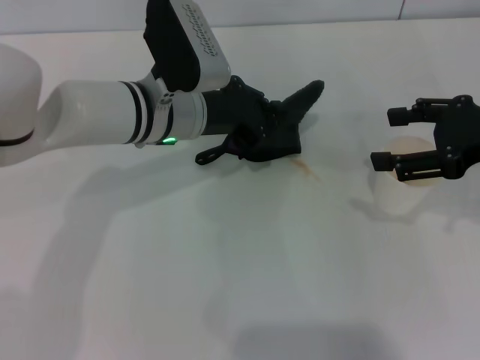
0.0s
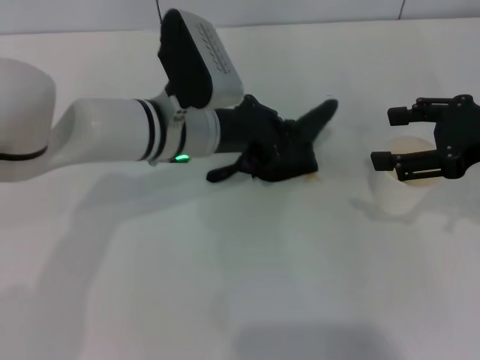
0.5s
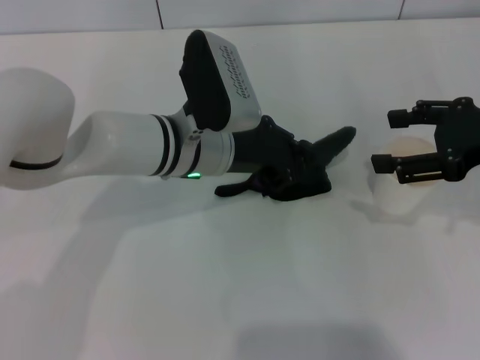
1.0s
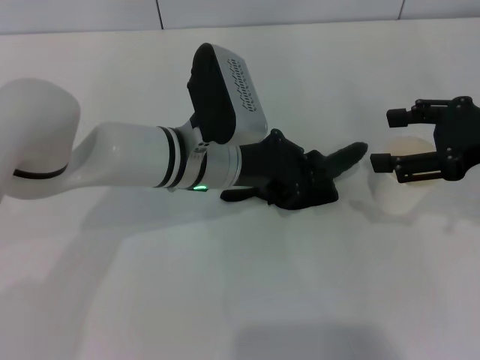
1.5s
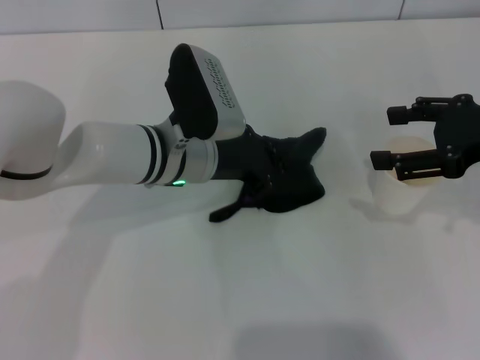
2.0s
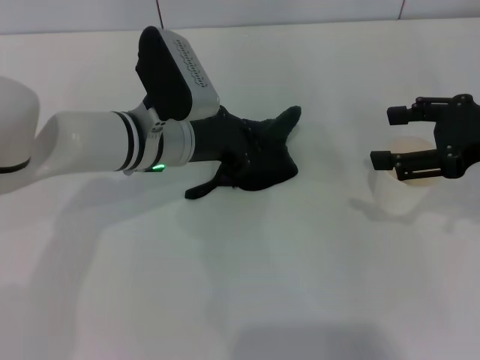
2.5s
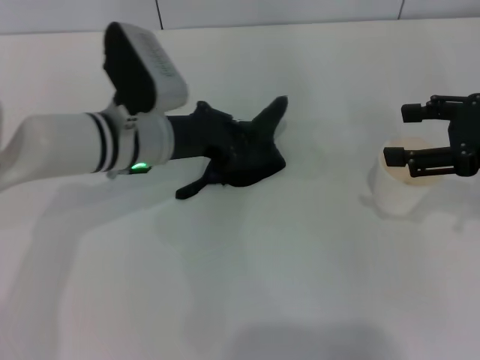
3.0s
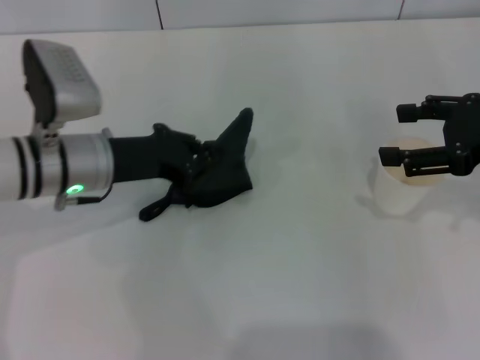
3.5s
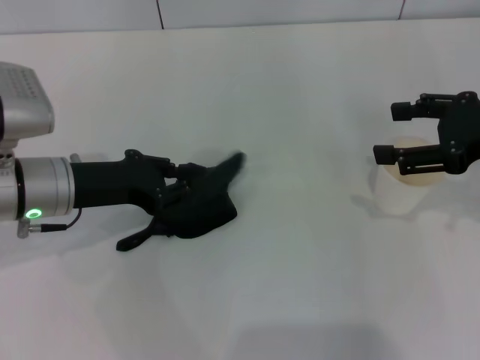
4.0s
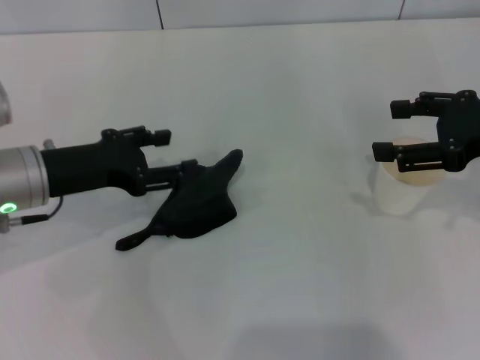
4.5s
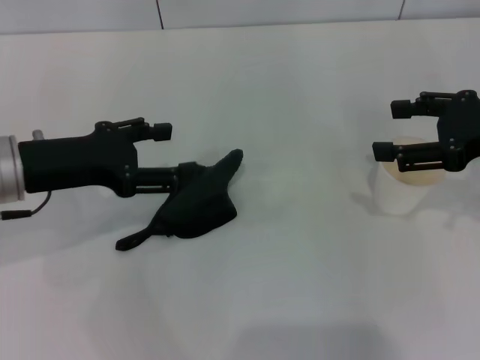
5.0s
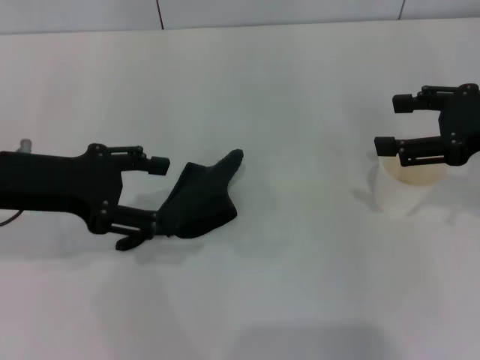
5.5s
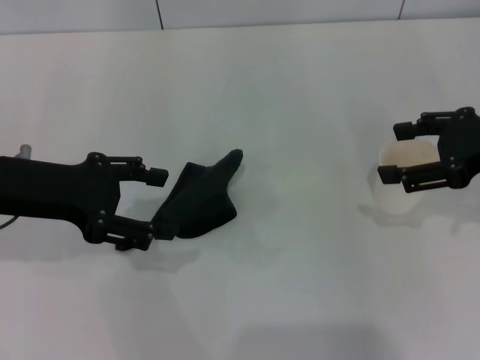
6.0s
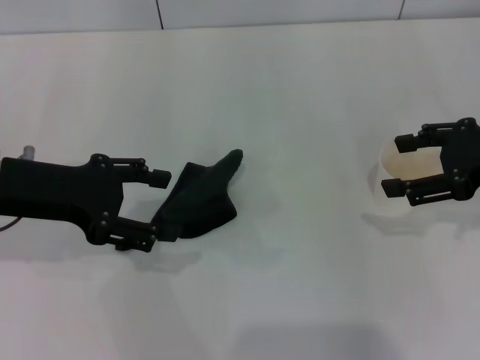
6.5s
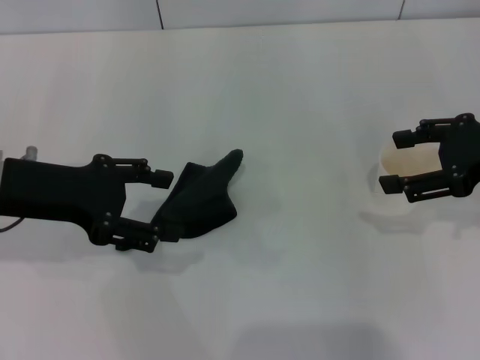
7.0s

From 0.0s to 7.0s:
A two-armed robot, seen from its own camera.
Step, from 0.0s to 3.5s: Wipe the stains off the table with the left gripper.
Step, from 4.0s to 5.5s: Place the rag on the table with the left gripper.
From 0.0s to 2.0s: There are only small adjustments of the grippers.
From 2.0s to 3.5s: The left gripper is displaced to the left by about 10 cm.
From 3.5s to 5.0s: The left gripper goes roughly 5 cm to the left, and opens its fingers.
From 5.0s to 7.0s: The grippers move only a little.

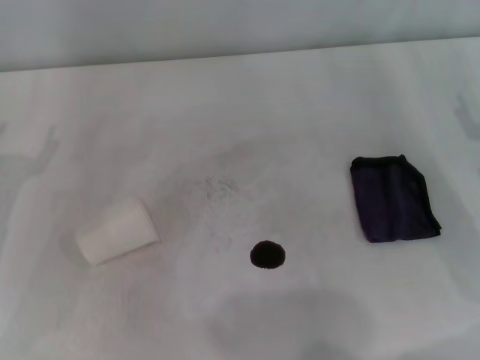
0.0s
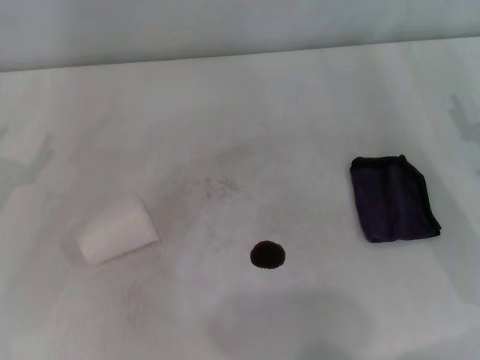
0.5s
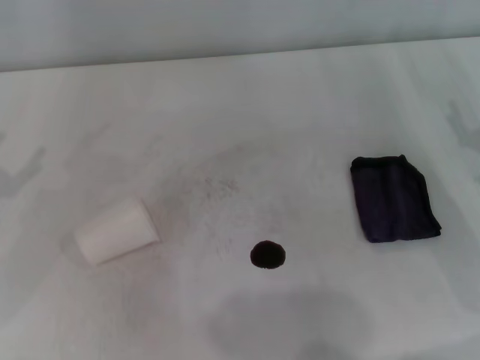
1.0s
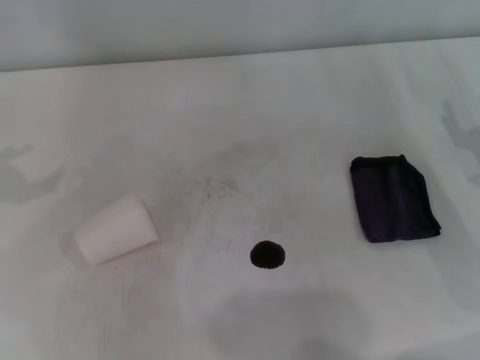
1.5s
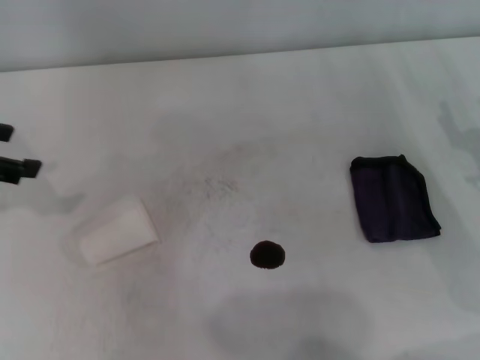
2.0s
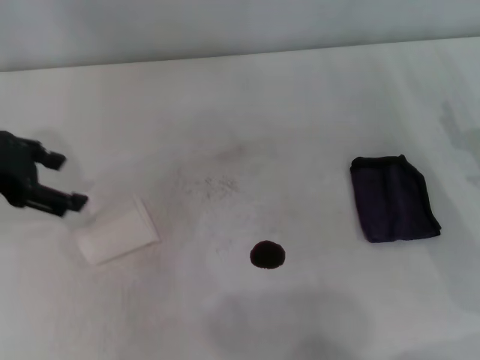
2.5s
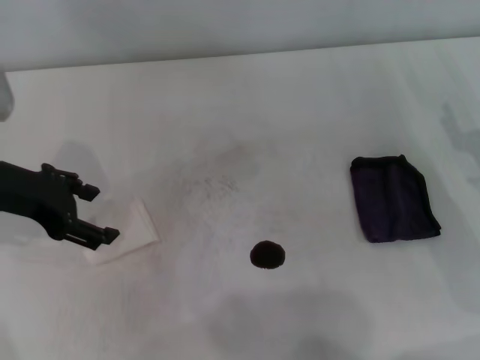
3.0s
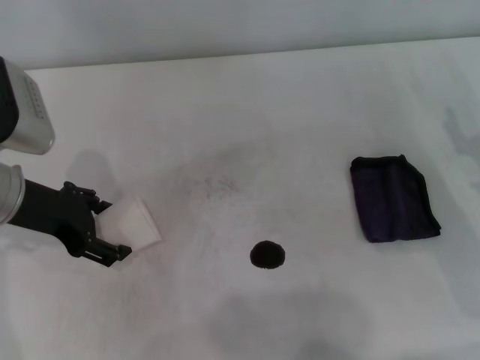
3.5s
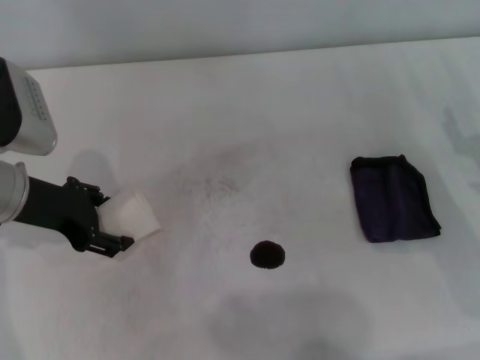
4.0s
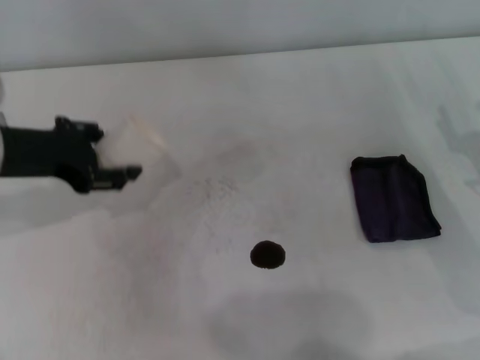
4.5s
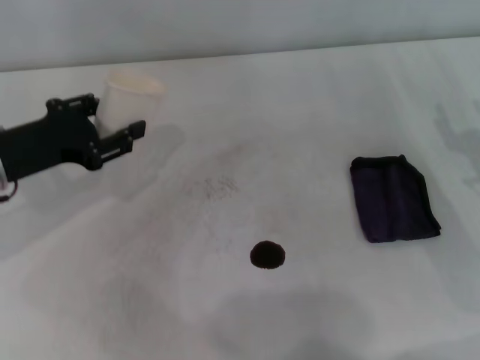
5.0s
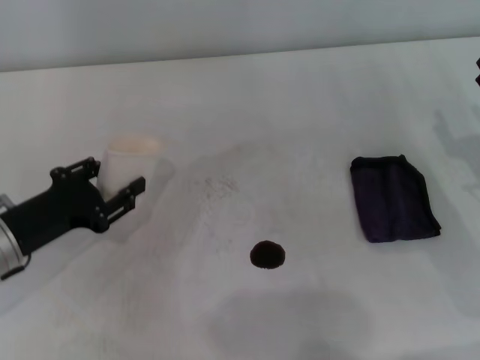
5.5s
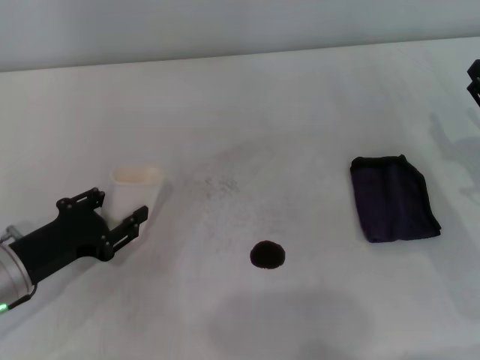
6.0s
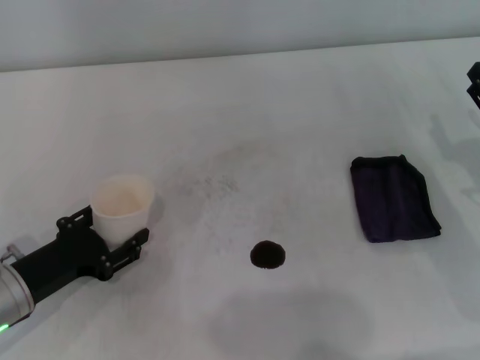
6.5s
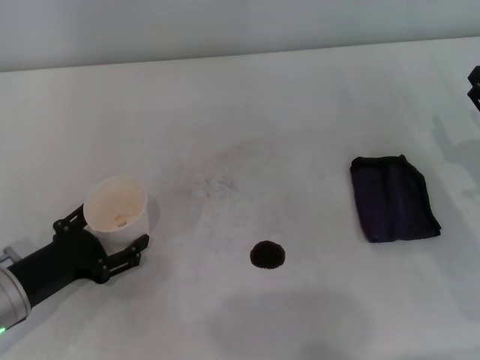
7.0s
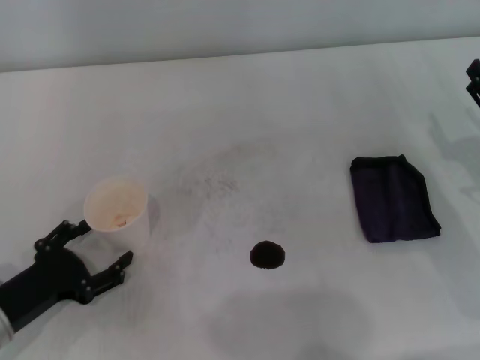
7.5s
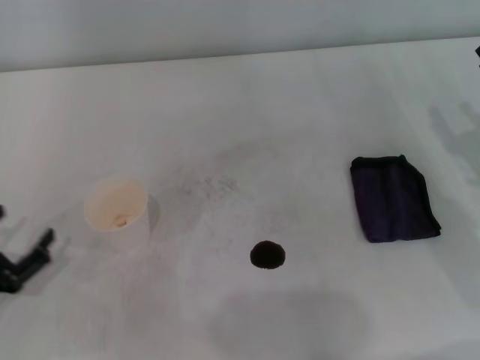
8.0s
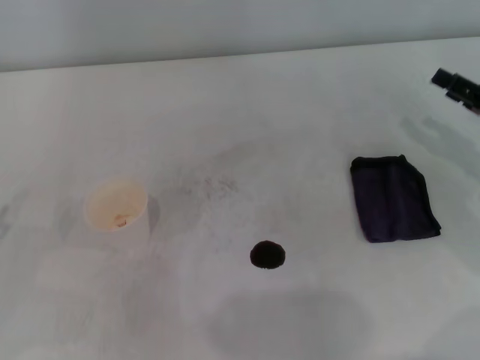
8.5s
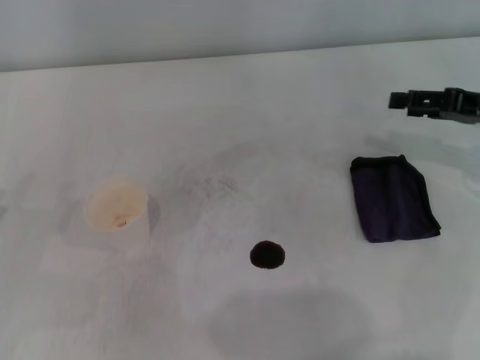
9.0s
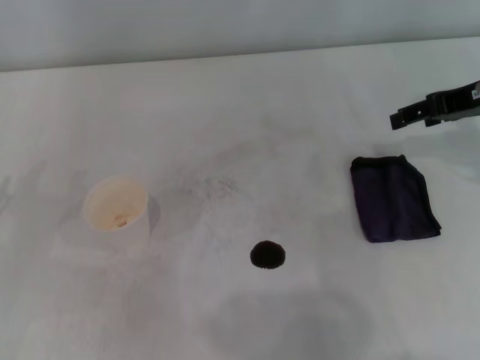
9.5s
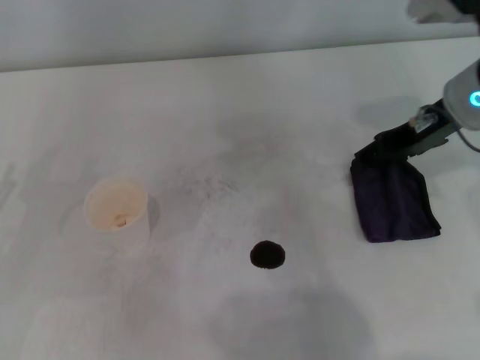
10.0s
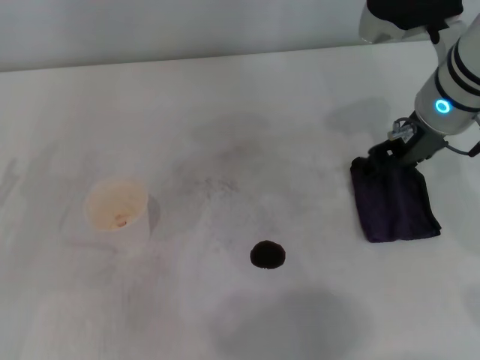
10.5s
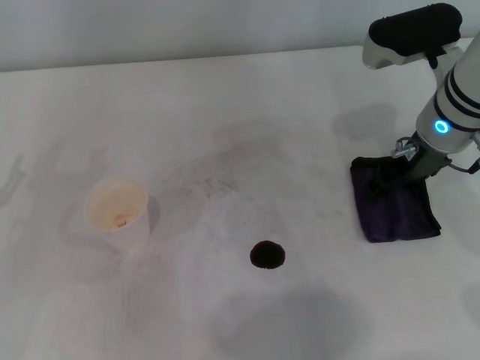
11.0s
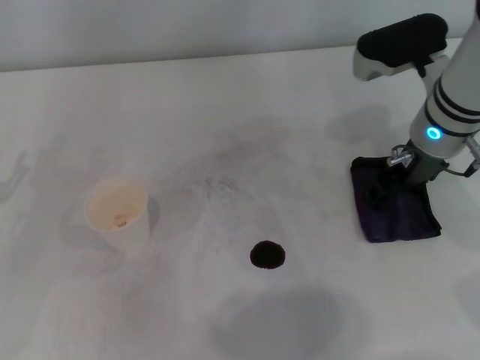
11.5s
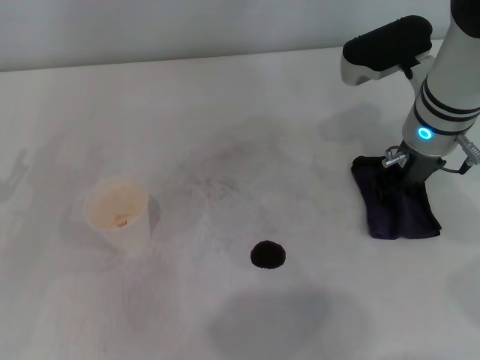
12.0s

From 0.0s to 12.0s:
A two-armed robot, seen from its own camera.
Step, from 0.0s to 3.5s: Grasp the paper cup with the left gripper.
Step, from 4.5s to 6.5s: Stand the paper cup upright with the left gripper.
From 0.0s to 2.0s: The left gripper heads upward and forward, covering some 15 cm.
From 2.0s to 4.0s: The left gripper is displaced to the right and downward by about 15 cm.
From 4.0s to 6.0s: The left gripper shifts approximately 15 cm downward and backward, and closes.
From 6.0s to 8.0s: The left gripper travels backward and to the left by roughly 10 cm, and opens.
From 8.0s to 10.0s: The left gripper is displaced forward by approximately 5 cm, while the right gripper heads to the left, upward and forward, covering roughly 20 cm.
From 10.0s to 12.0s: The right gripper shifts by about 5 cm.

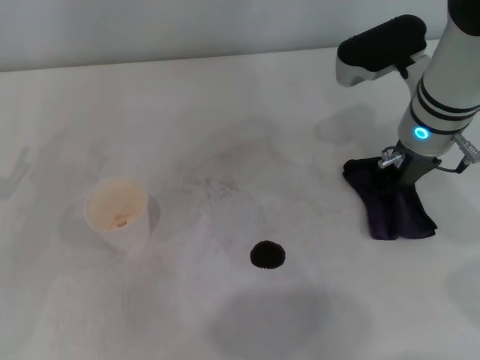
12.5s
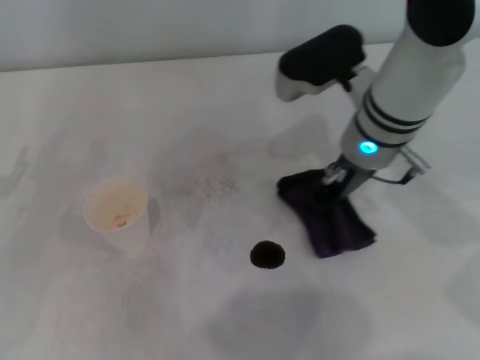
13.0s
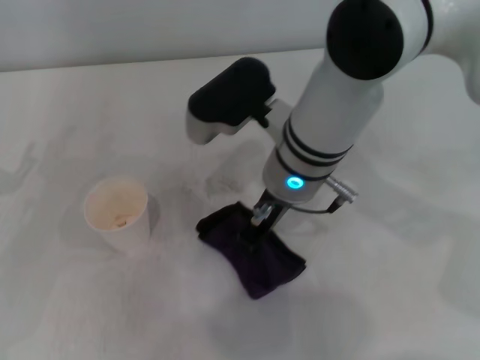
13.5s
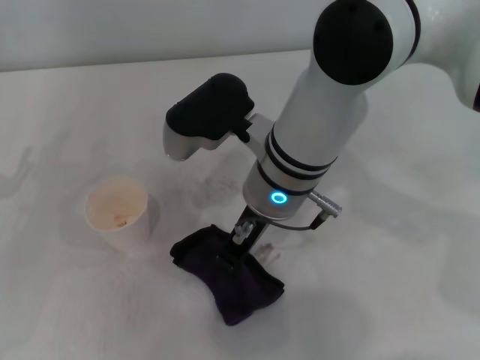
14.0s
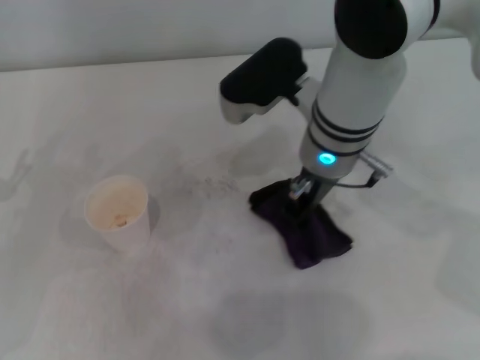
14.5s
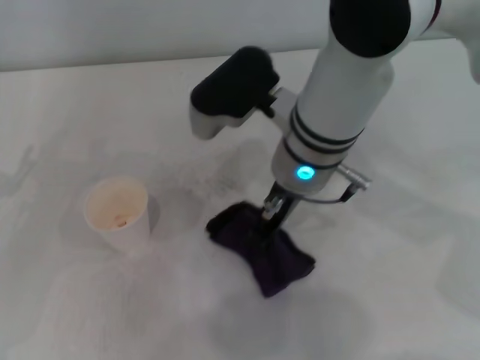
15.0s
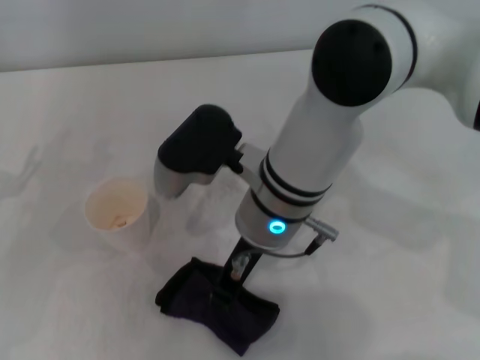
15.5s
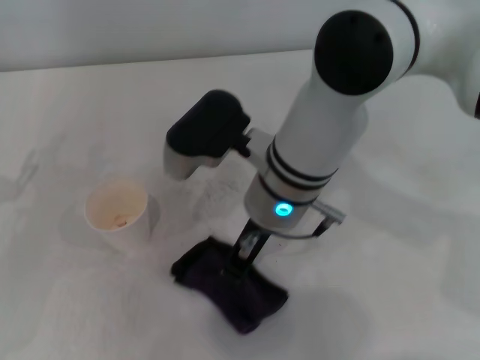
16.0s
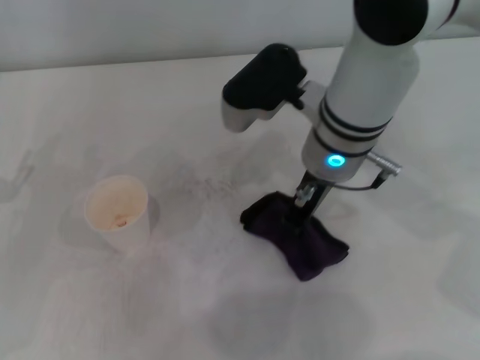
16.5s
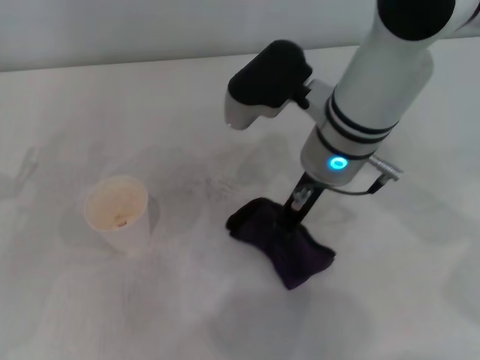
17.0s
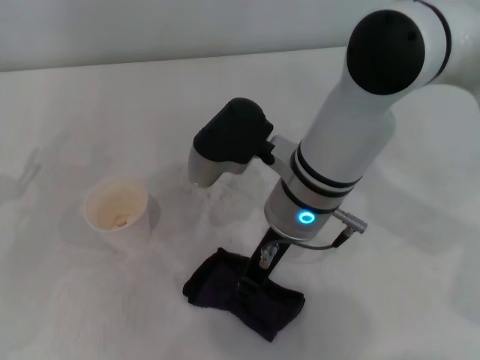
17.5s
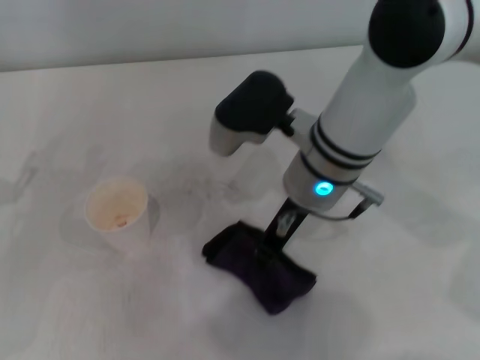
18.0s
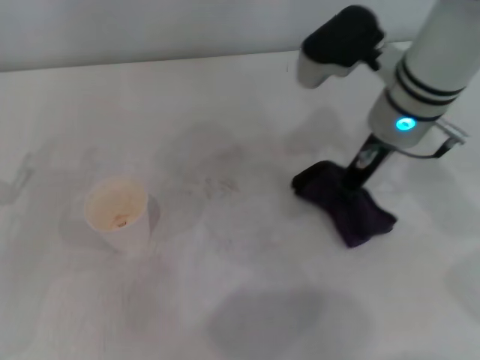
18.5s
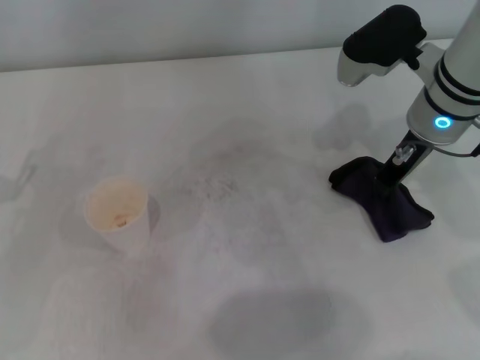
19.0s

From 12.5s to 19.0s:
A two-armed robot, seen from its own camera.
Step, from 12.5s to 18.5s: Wipe the stains off the table with the right gripper.
From 12.5s to 14.5s: The right gripper travels to the left by approximately 10 cm.
From 17.0s to 19.0s: The right gripper shifts approximately 10 cm to the right.
